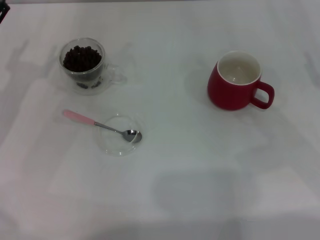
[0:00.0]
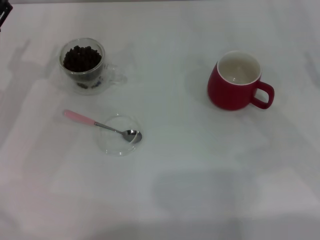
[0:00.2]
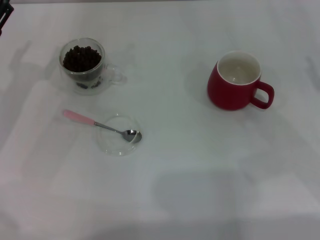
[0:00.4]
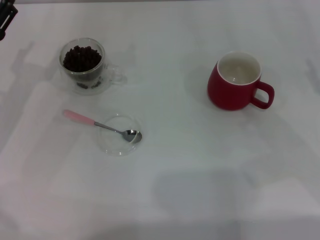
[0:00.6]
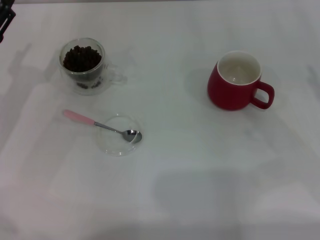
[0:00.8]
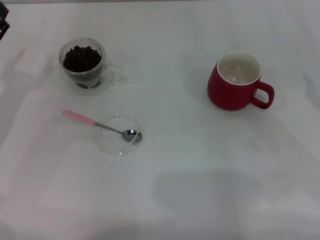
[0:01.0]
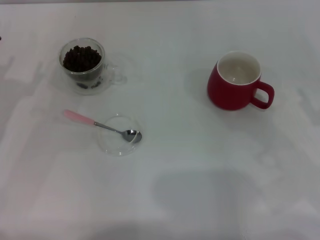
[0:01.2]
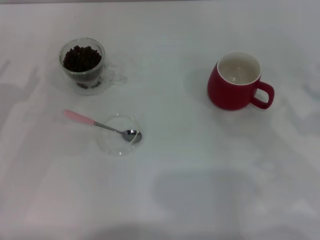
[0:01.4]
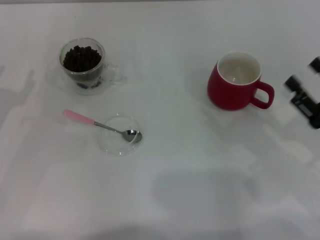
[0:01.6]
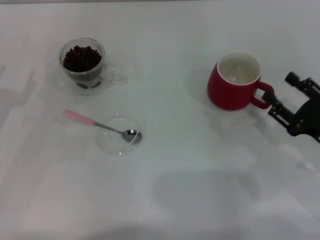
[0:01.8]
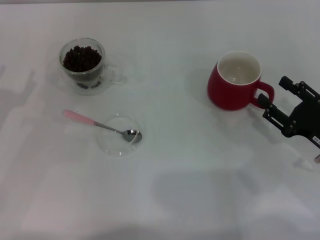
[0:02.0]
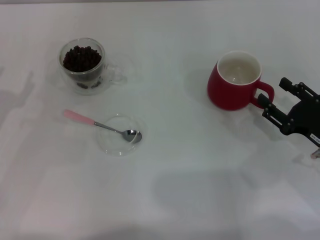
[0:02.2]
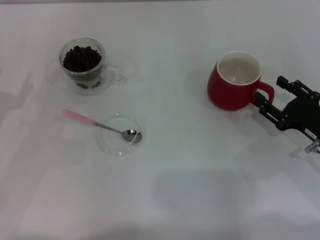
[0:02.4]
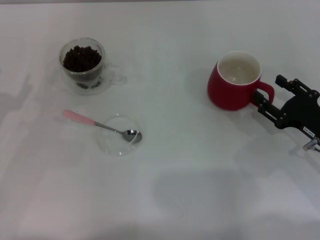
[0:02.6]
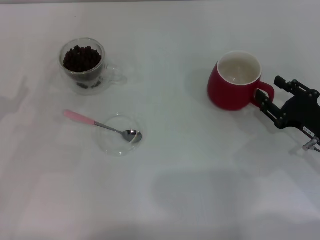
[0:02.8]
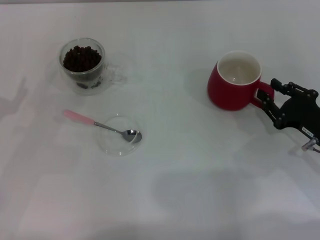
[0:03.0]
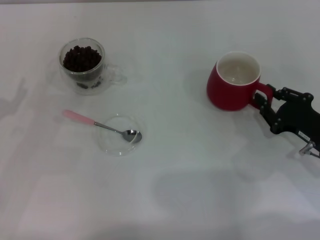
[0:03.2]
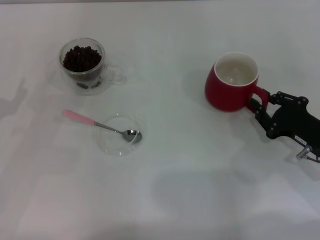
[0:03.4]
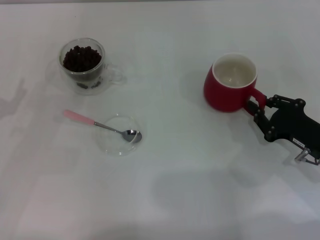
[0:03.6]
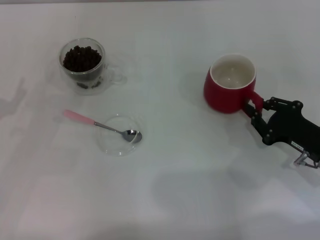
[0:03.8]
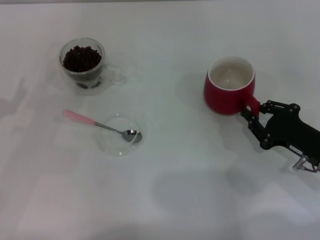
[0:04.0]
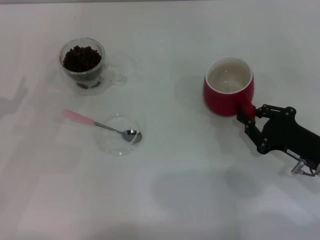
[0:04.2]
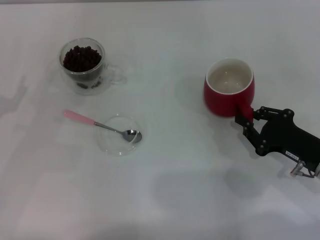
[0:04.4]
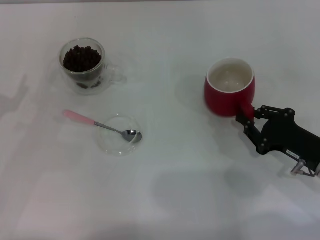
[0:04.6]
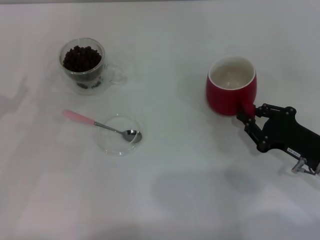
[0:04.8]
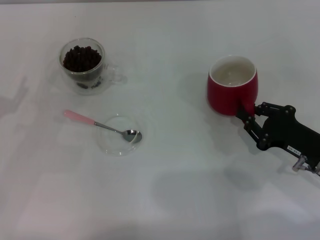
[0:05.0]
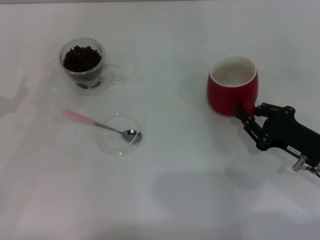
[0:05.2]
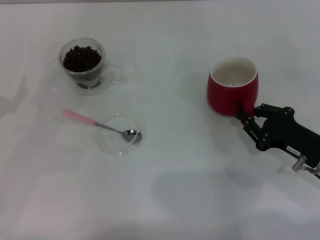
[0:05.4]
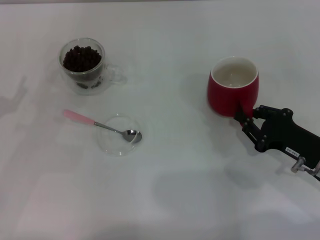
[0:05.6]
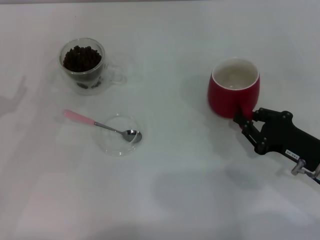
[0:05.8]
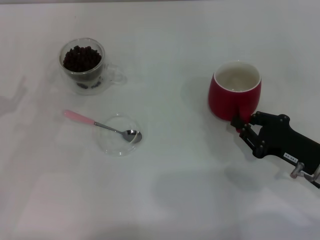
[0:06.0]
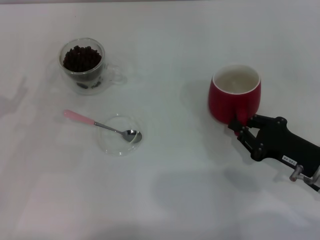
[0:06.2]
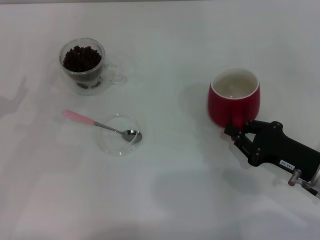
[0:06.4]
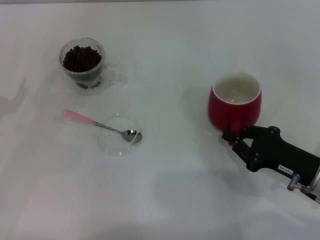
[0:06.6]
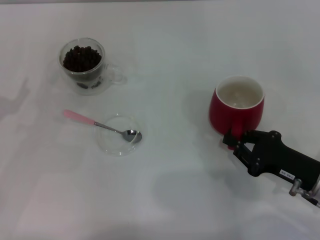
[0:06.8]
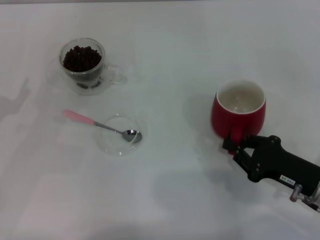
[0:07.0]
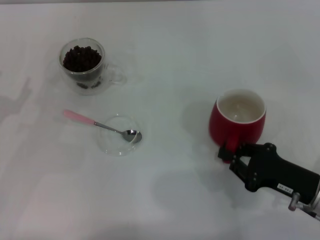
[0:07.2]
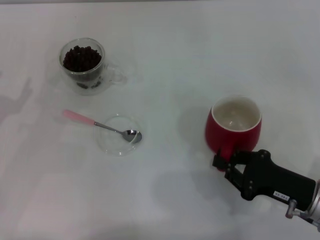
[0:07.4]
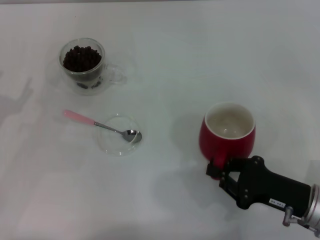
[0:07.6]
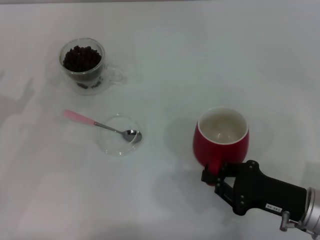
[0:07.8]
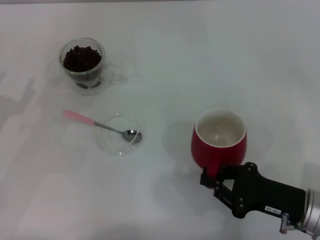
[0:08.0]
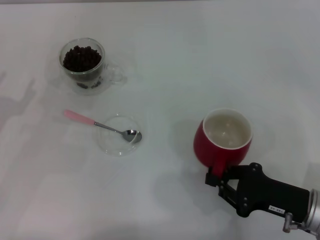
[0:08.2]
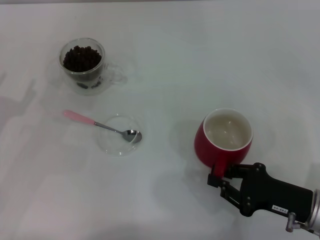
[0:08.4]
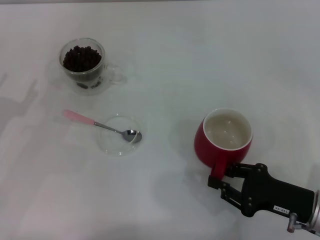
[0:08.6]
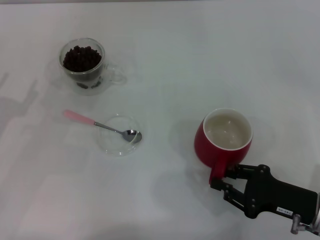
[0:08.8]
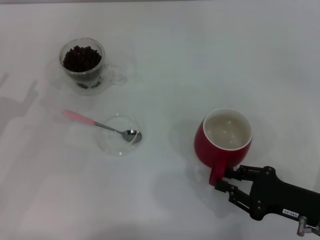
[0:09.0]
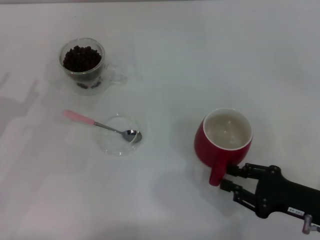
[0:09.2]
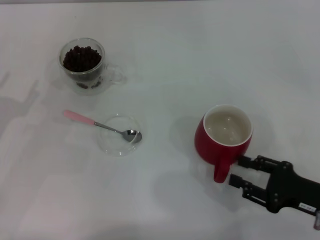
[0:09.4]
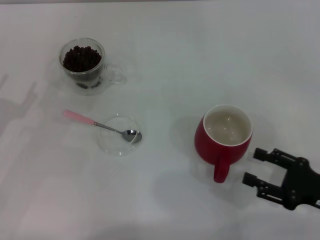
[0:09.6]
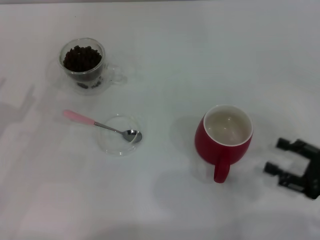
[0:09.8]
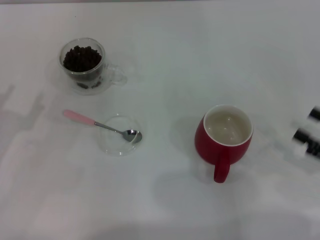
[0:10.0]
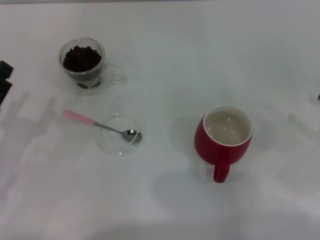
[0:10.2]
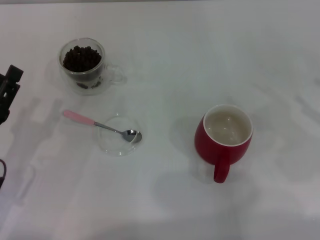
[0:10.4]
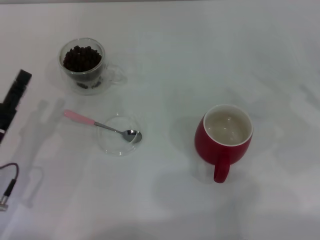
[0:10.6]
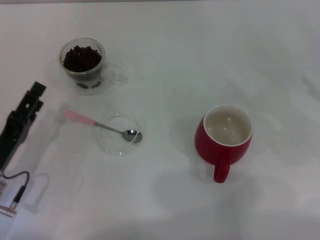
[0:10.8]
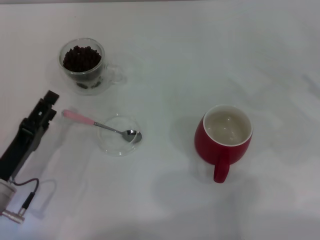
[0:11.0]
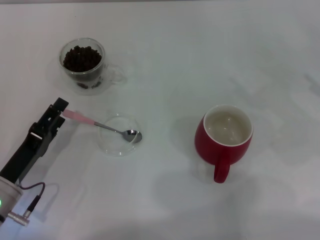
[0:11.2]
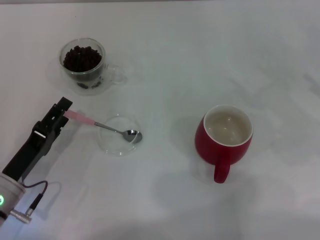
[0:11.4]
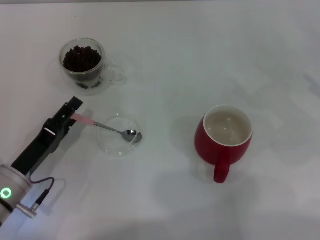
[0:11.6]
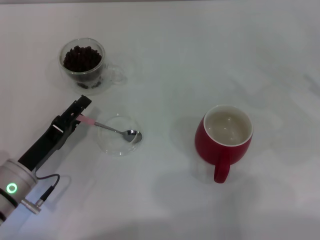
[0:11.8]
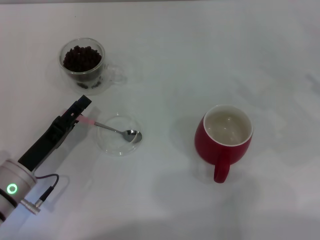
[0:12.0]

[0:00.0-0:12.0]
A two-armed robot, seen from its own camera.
Task of the whole recording: Use a pink spoon to take out the coffee beans from the glass and pour them into the red cup.
Step, 0:00.0 to 0:09.6: Move the cup to the center of view with the left gripper.
0:00.0 to 0:01.6: The right gripper heads downward and backward, covering roughly 10 cm.
0:01.6 to 0:03.0: The right gripper shifts by some 5 cm.
0:03.0 to 0:04.4: The right gripper closes its fingers.
0:04.4 to 0:06.0: There are only small adjustments of the grippers.
0:06.0 to 0:09.0: The grippers move only a little.
0:09.0 to 0:10.4: The right gripper goes some 15 cm to the right, upward and forward, and opens up, while the left gripper shifts roughly 5 cm to the right.
0:10.4 to 0:12.0: The left gripper shifts by roughly 5 cm.

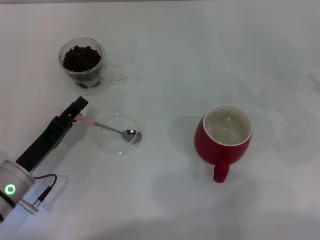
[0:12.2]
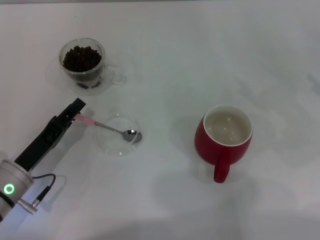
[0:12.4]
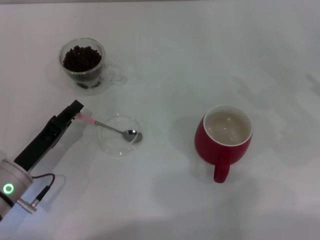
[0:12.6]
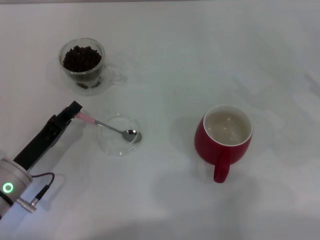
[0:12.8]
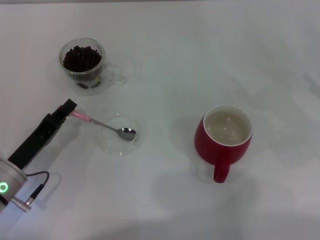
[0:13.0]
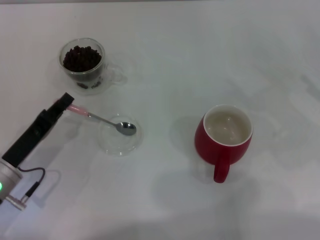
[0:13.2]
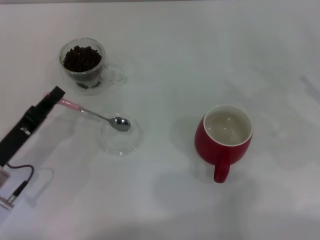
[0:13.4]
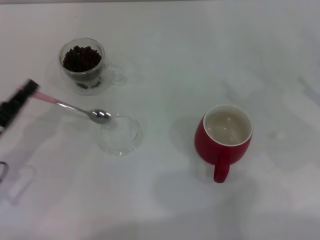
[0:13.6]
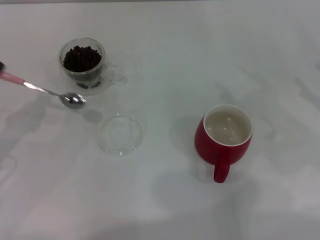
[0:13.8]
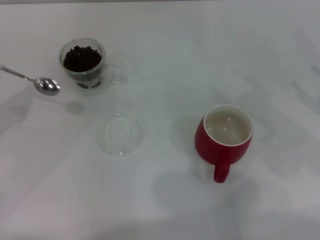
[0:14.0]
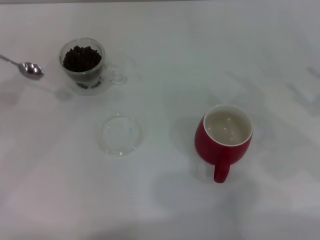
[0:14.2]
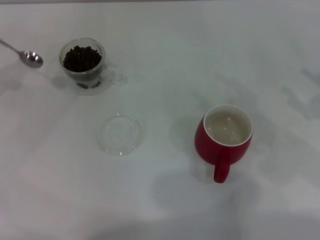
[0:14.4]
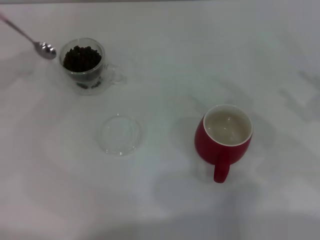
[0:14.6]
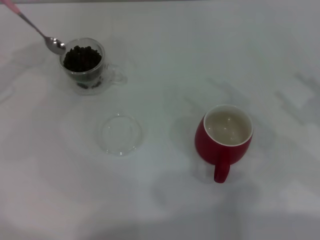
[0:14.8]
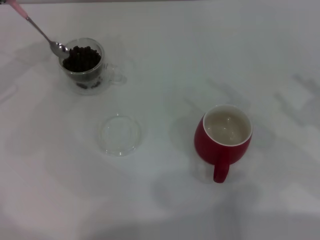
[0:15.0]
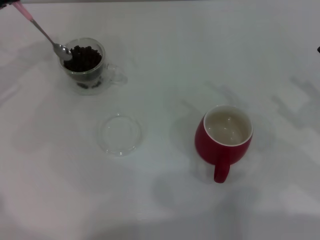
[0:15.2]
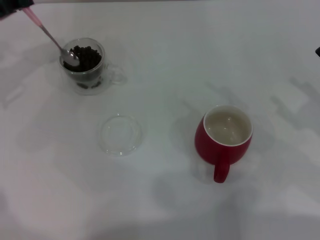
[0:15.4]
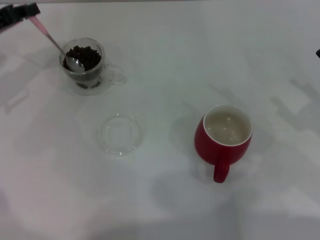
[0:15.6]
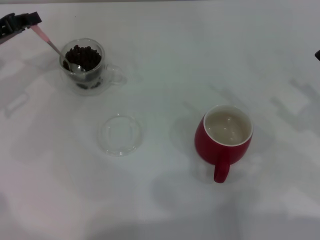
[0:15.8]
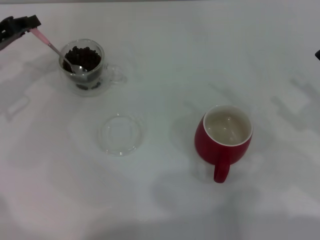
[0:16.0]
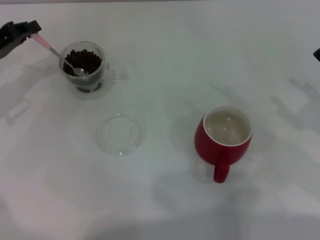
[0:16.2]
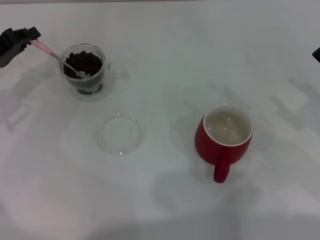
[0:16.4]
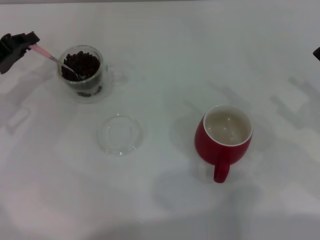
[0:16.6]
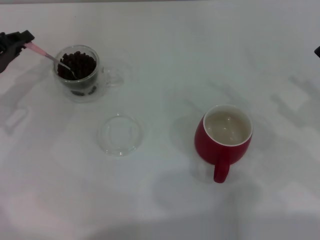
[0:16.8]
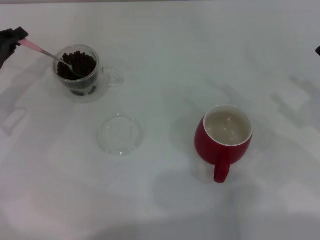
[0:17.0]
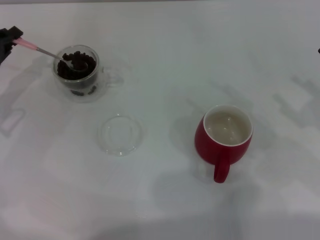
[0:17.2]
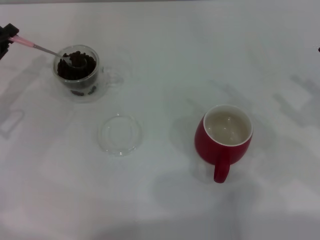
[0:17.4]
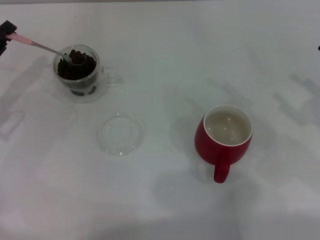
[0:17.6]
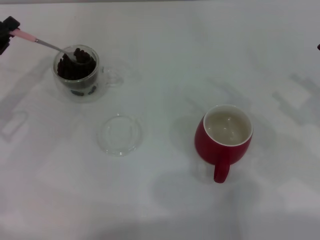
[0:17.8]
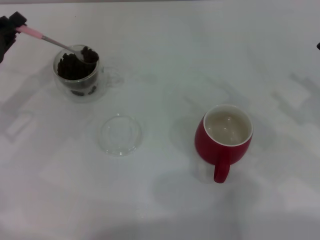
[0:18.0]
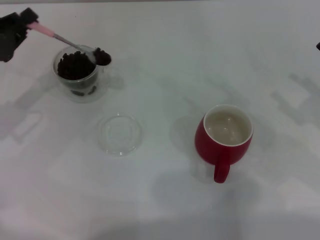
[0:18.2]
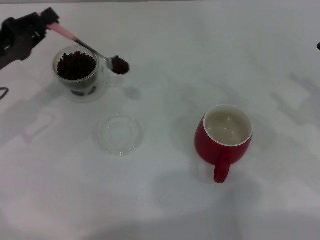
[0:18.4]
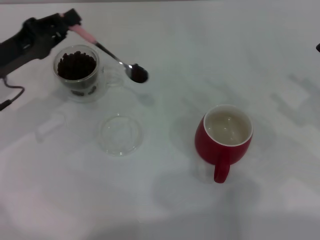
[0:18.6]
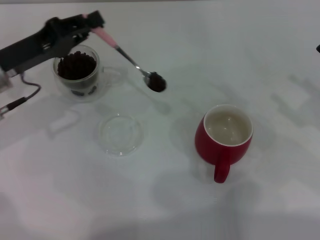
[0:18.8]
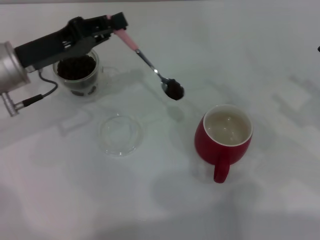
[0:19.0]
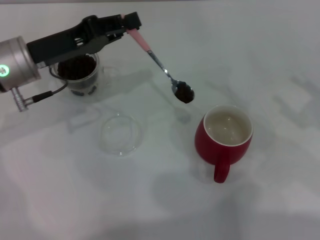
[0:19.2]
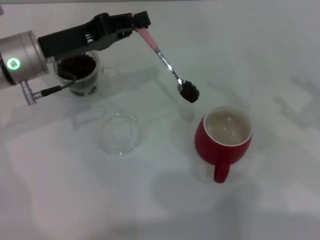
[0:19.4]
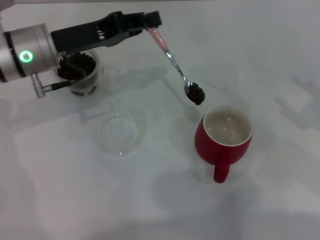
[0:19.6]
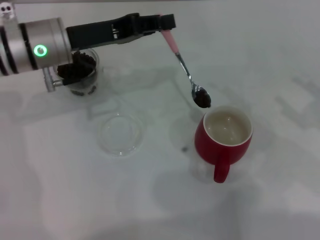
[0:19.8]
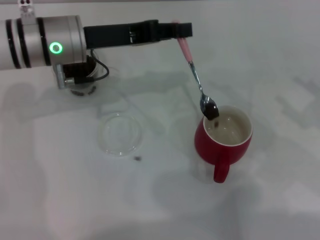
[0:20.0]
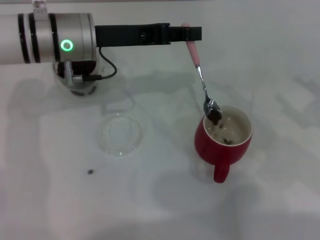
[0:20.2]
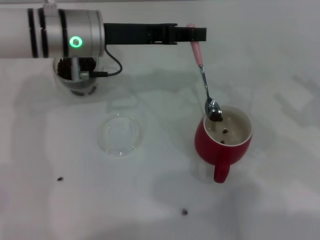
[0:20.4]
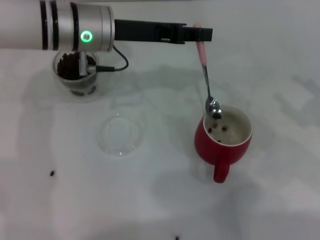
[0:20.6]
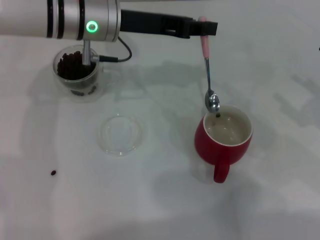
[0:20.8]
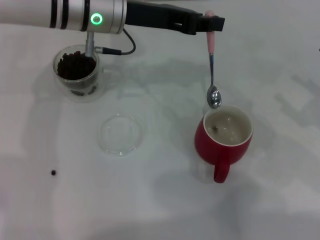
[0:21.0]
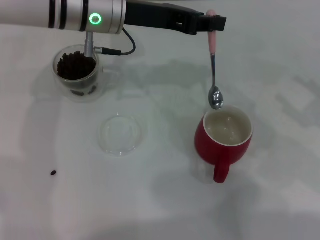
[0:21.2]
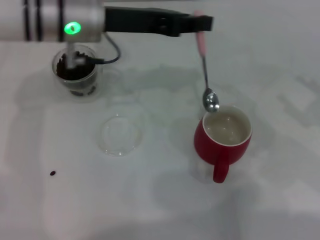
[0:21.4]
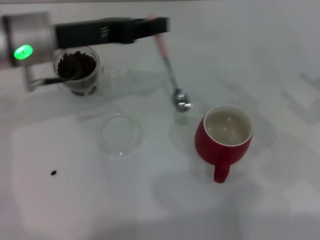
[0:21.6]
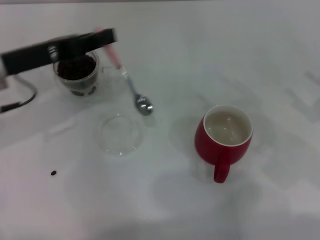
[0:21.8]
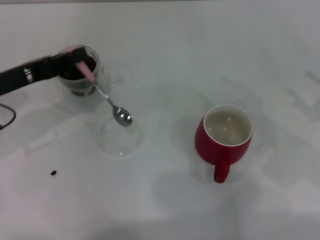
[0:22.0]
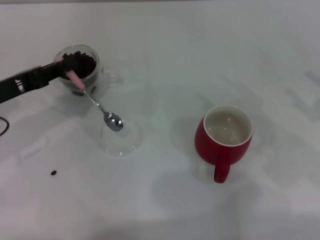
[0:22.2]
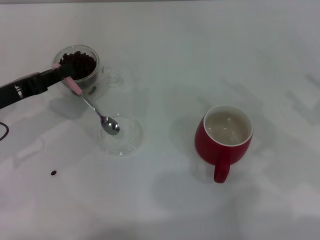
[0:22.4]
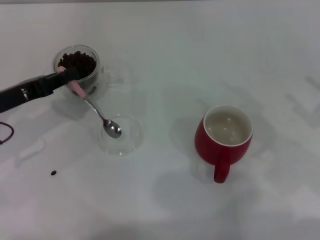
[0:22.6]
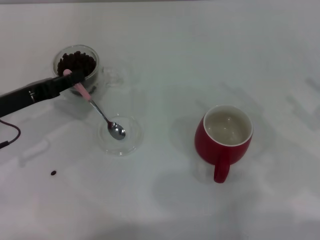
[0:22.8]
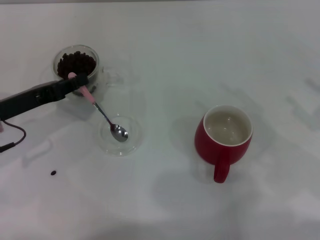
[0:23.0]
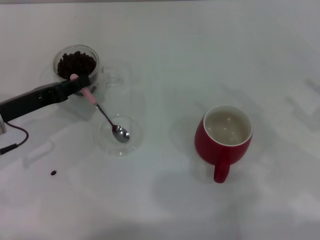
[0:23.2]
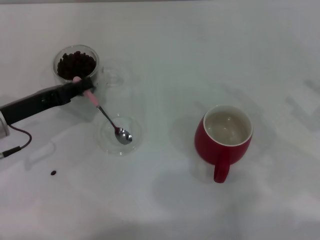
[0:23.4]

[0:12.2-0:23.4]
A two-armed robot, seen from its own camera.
Task of the whole recording: Use a pink spoon to take out the coffee beans from the glass and pour them into the red cup.
0:12.2 to 0:13.8: The left gripper travels to the left and upward by some 10 cm, and closes up.
0:13.8 to 0:15.4: The left gripper heads forward and upward, covering about 20 cm.
0:15.4 to 0:17.0: The left gripper is displaced downward by about 5 cm.
0:17.0 to 0:18.6: The left gripper goes roughly 5 cm to the right.
0:18.6 to 0:20.2: The left gripper travels to the right by approximately 15 cm.
0:20.2 to 0:21.8: The left gripper travels to the left and backward by about 10 cm.
0:21.8 to 0:23.4: The left gripper moves downward, some 10 cm.
